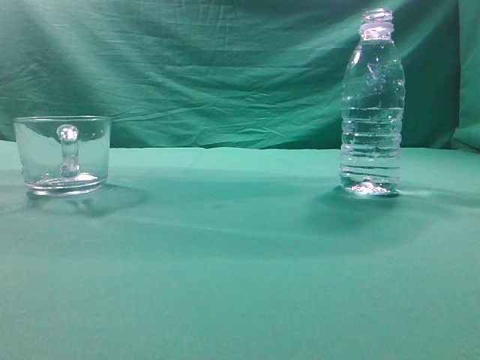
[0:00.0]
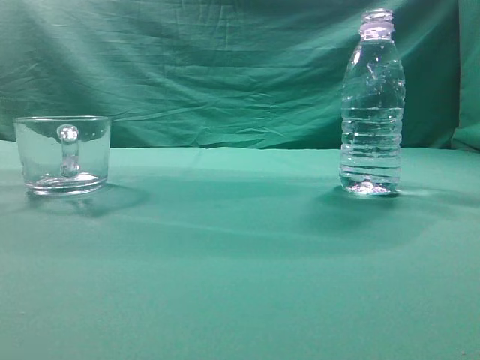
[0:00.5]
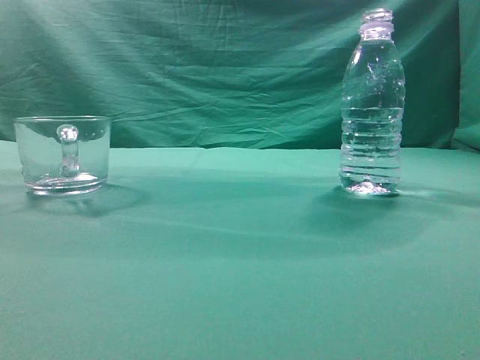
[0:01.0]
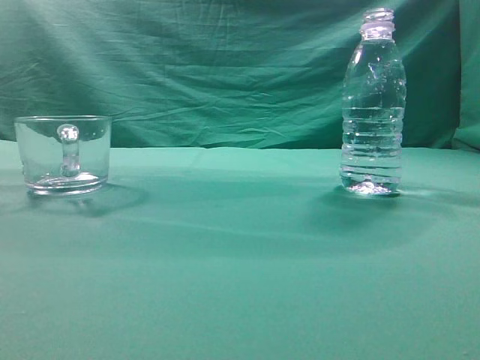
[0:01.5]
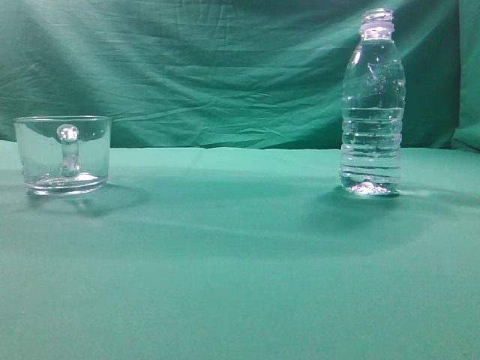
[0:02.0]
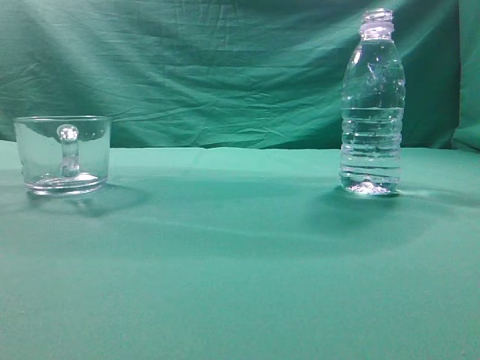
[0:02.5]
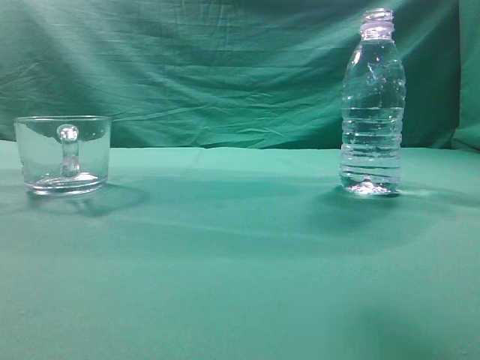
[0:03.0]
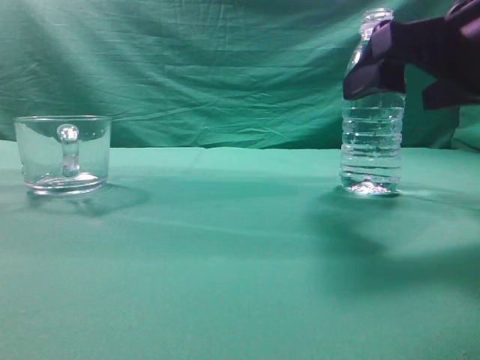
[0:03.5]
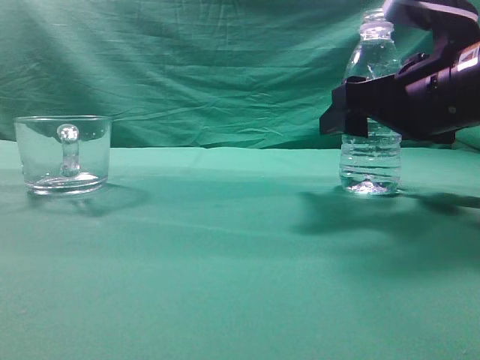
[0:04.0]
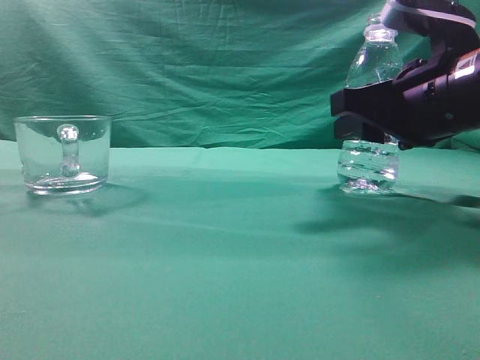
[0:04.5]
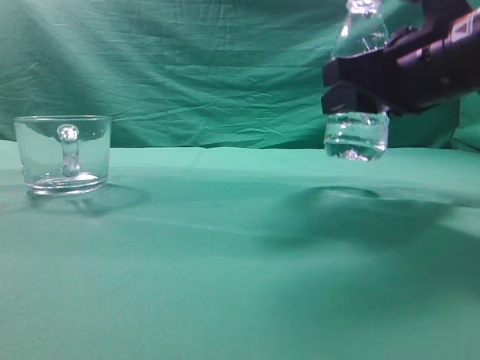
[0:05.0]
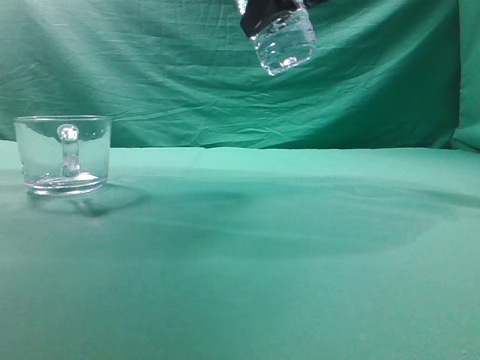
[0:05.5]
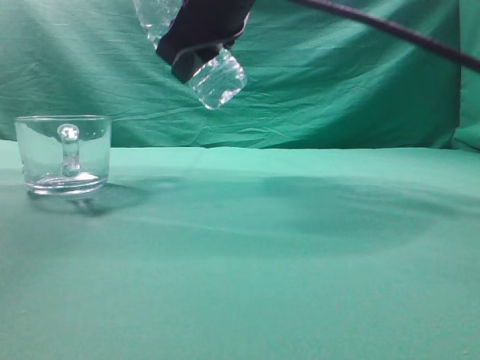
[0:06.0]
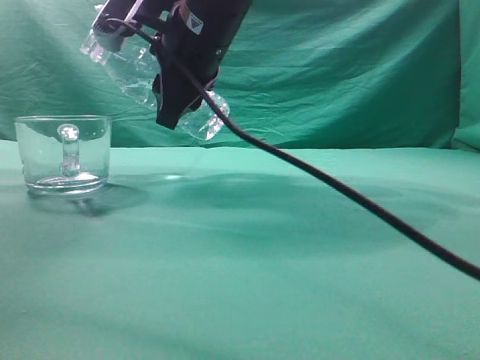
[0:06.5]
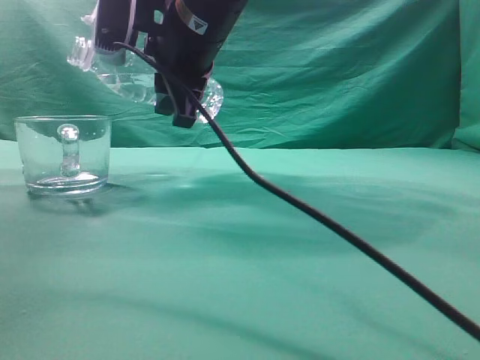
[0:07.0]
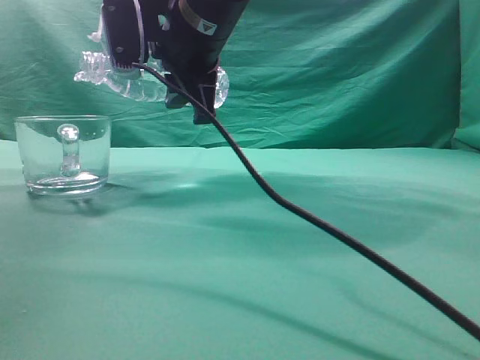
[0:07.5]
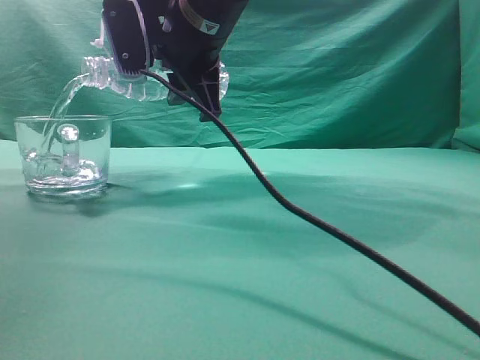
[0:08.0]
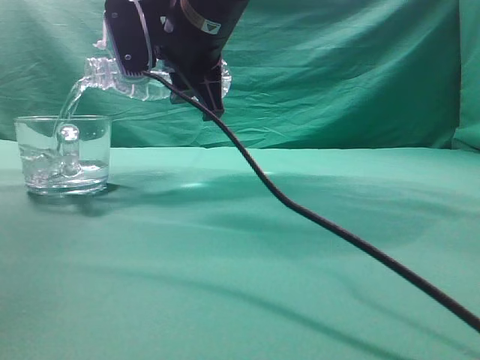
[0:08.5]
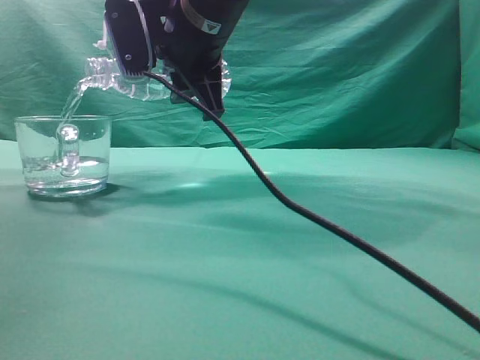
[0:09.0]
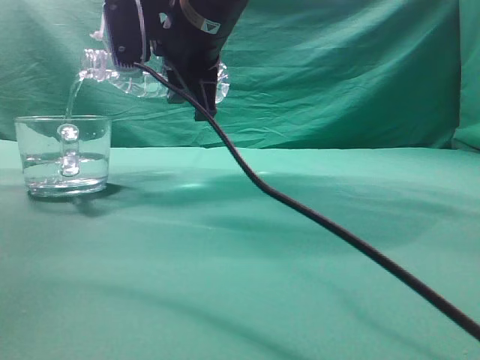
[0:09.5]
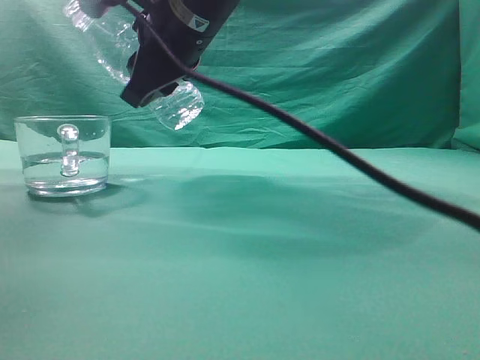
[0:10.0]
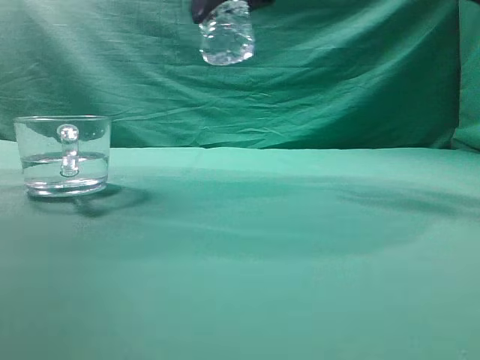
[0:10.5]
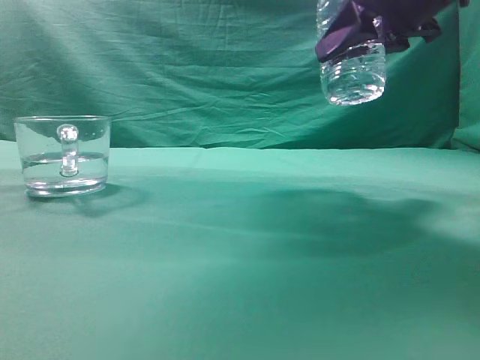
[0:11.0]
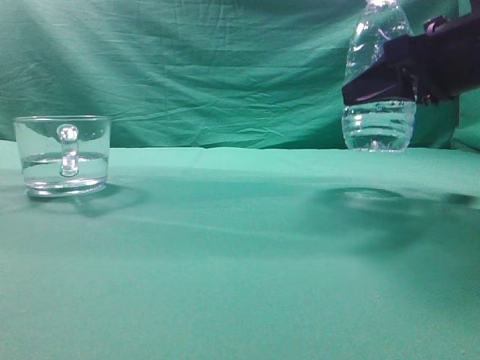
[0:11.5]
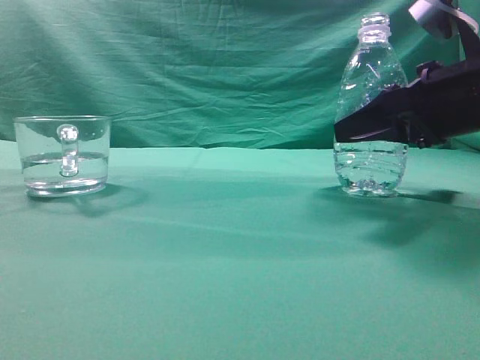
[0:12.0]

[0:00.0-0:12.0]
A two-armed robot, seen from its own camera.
Task of the whole recording: pick up the water bottle and pour the water in it into the glass.
Step, 0:00.0 to 0:05.0: Grasp the mineral water bottle.
Step, 0:05.5 to 0:09.5: Pour water into the teacup.
0:02.0 to 0:04.0: The right gripper heads forward, downward and to the left, covering some 30 cm, and opens.
0:04.0 to 0:06.0: The right gripper moves to the left and upward, approximately 20 cm, and closes its fingers.
0:10.0 to 0:12.0: The right gripper shifts some 25 cm to the right.

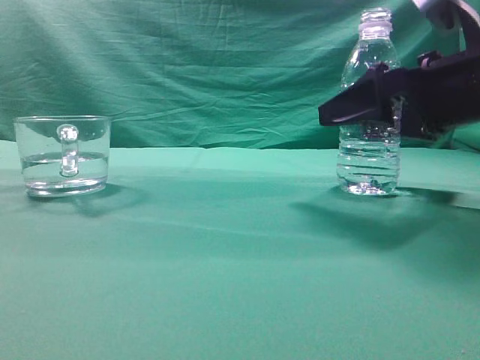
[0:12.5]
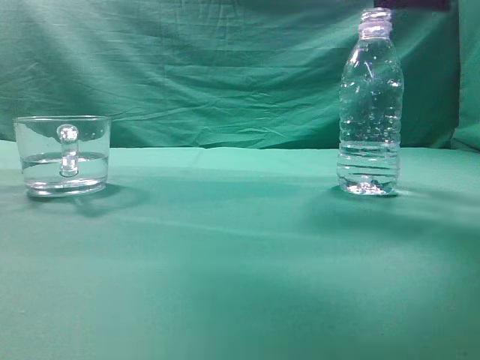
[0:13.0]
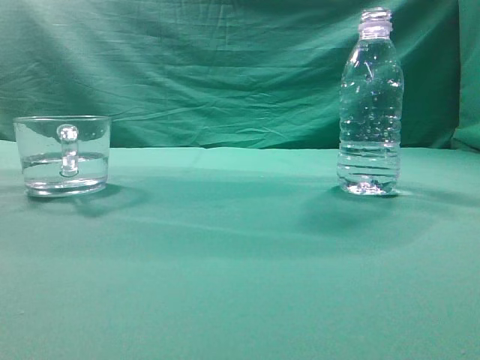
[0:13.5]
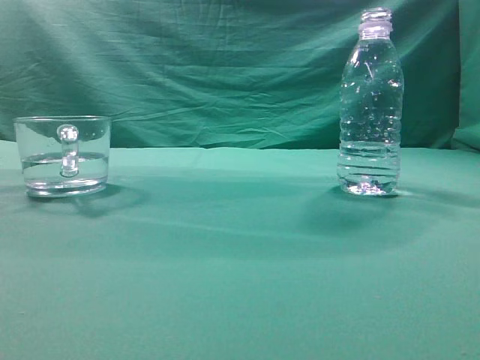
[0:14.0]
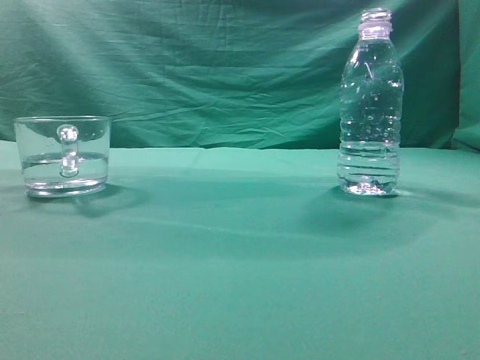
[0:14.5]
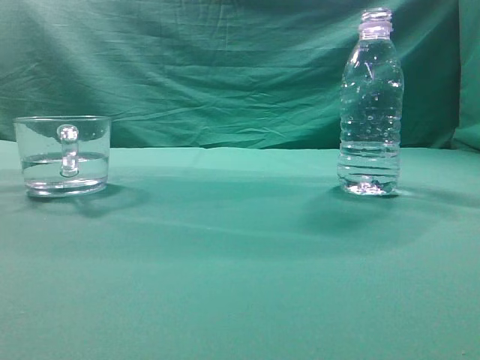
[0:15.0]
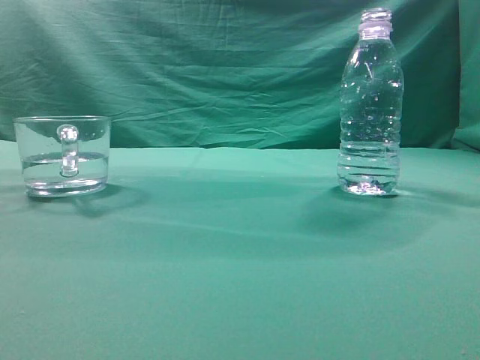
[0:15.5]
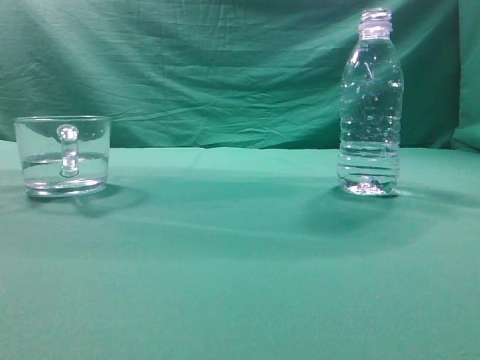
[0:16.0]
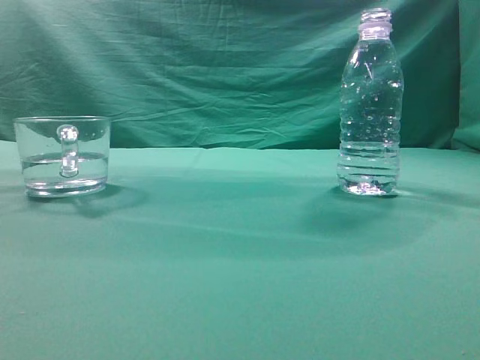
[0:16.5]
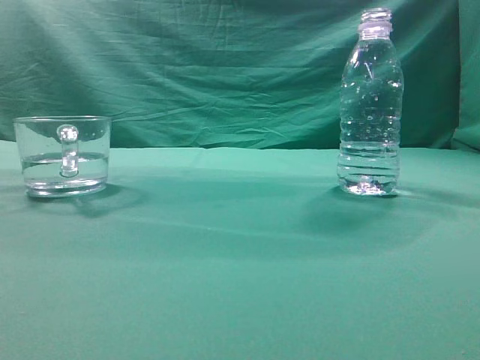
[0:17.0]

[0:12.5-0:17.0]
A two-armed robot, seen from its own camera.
Task of the whole recording: pick up the water bottle and pour the water in it into the glass.
0:12.5 to 0:14.5: The right gripper goes approximately 40 cm upward and backward, and closes up.

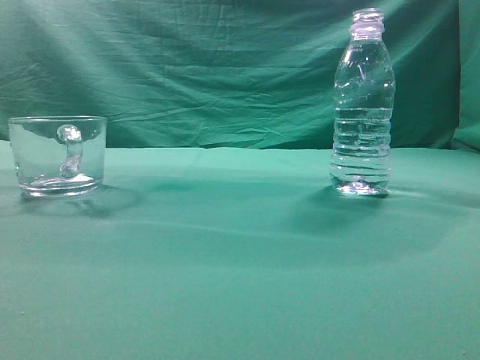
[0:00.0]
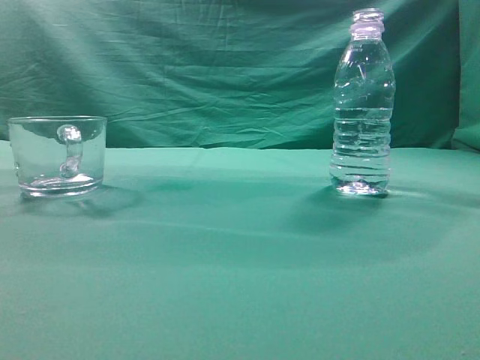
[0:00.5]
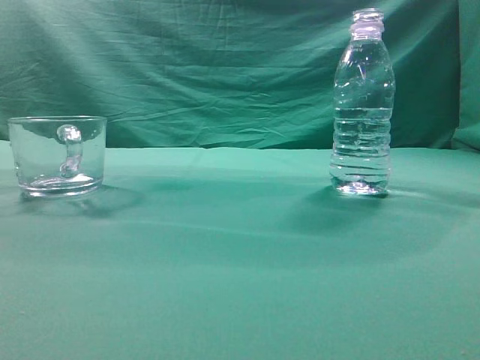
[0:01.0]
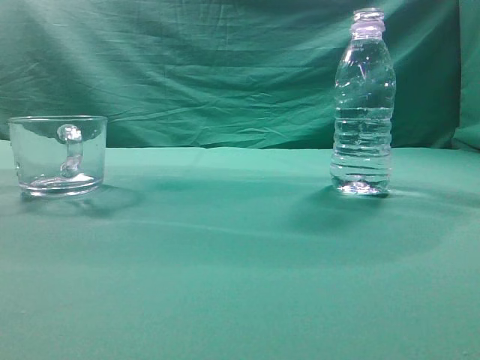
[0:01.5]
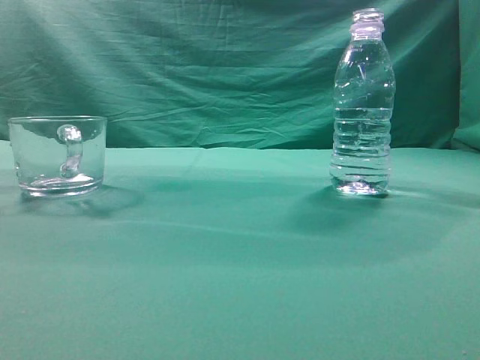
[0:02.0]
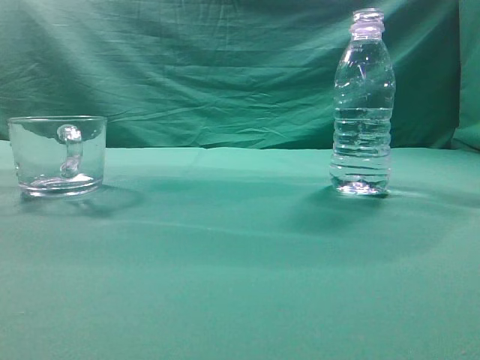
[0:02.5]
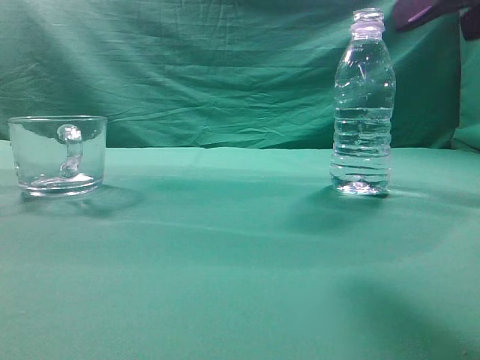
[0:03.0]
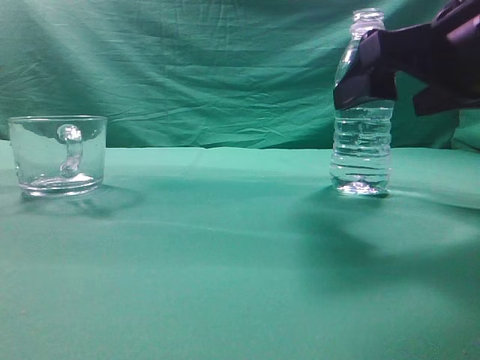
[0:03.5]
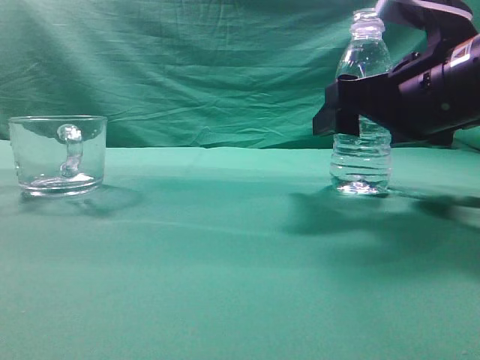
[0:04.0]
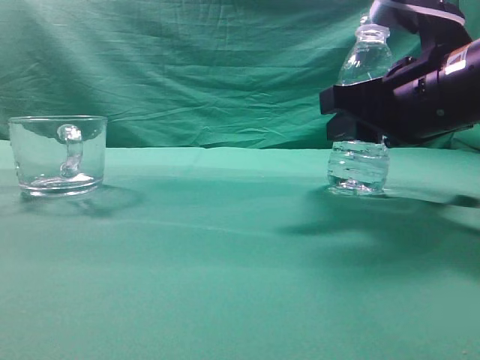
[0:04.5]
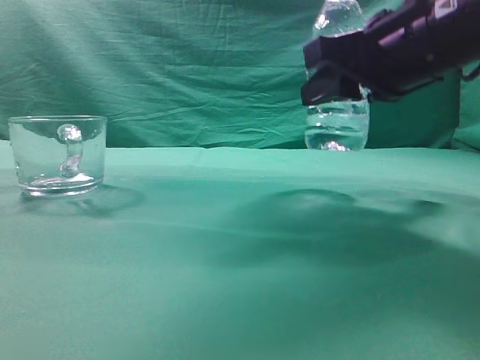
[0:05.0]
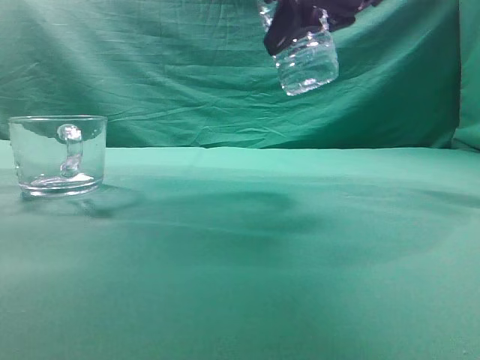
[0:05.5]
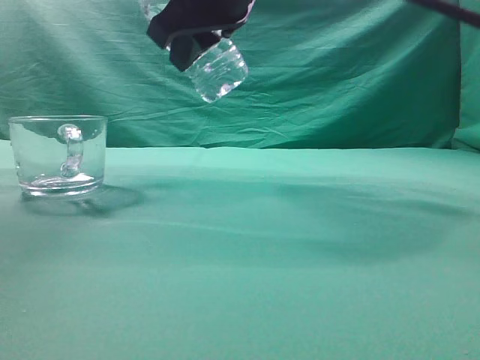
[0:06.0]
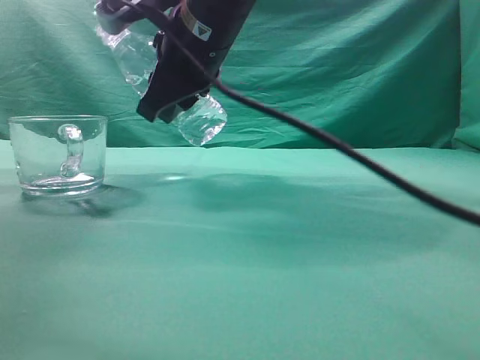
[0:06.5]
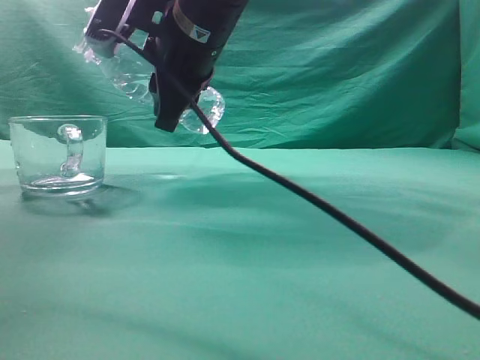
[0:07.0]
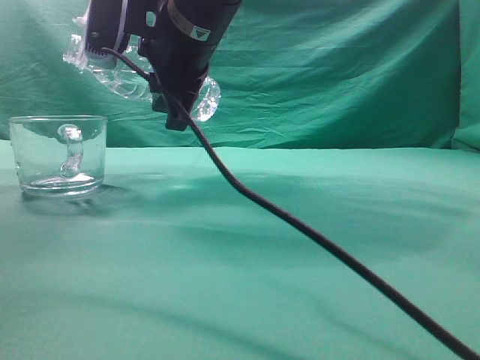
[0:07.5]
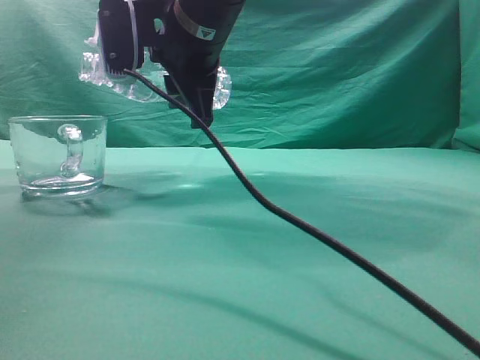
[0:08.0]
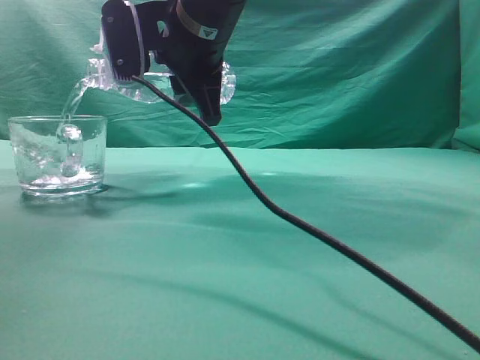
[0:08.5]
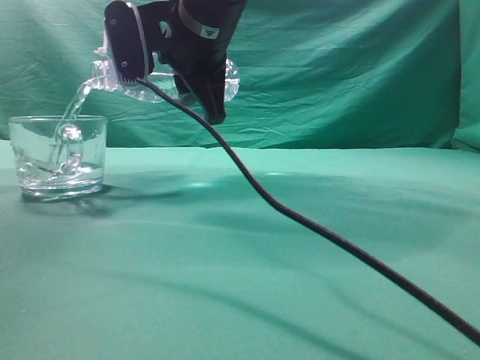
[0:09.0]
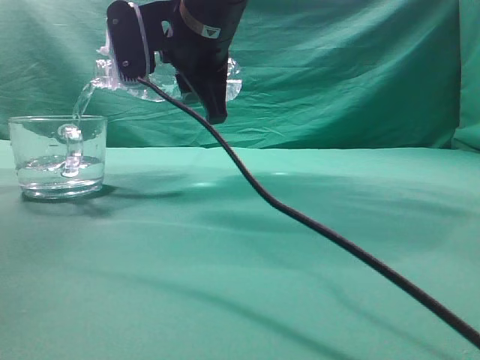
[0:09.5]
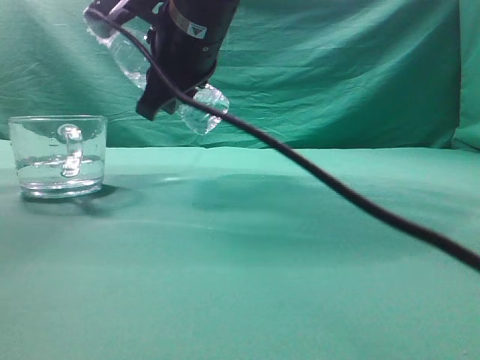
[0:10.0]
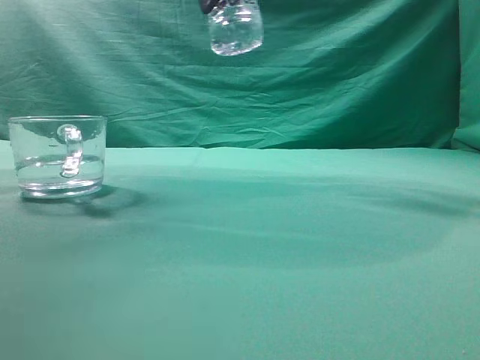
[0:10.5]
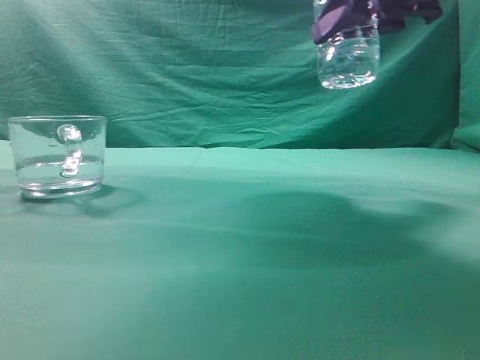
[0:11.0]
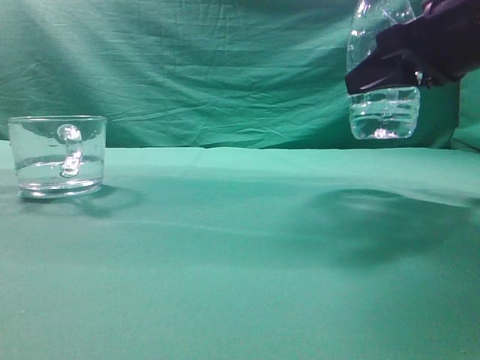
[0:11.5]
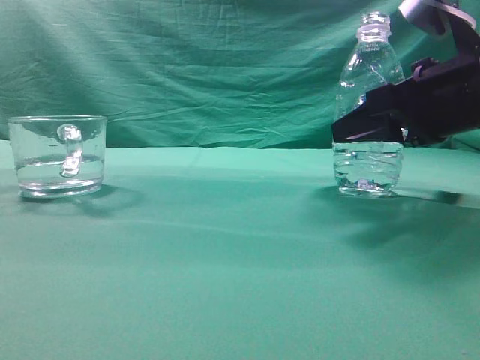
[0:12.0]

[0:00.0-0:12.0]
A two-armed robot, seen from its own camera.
Task of the whole recording: pick up the water bottle and pour the water in it into the glass.
Step, 0:00.0 to 0:05.0: Grasp the mineral water bottle.
Step, 0:05.5 to 0:10.0: Pour water into the teacup.
0:02.0 to 0:04.0: The right gripper is displaced forward, downward and to the left by roughly 30 cm, and opens.
0:04.0 to 0:06.0: The right gripper goes some 20 cm to the left and upward, and closes.
0:06.0 to 0:08.0: The right gripper moves about 5 cm.
0:10.0 to 0:12.0: The right gripper travels to the right by some 25 cm.
